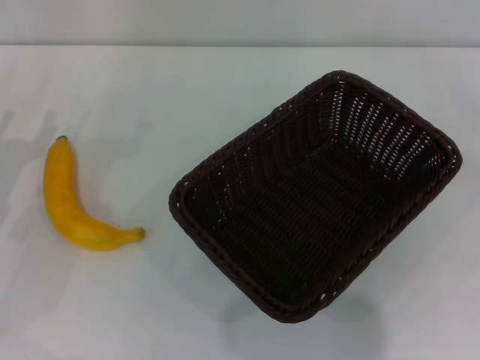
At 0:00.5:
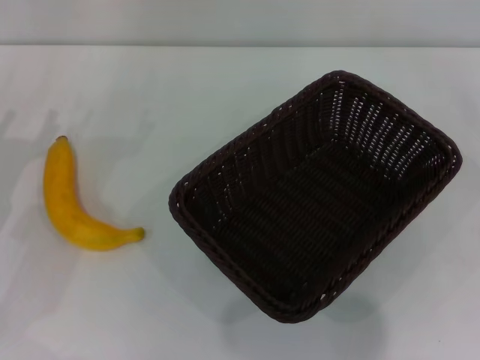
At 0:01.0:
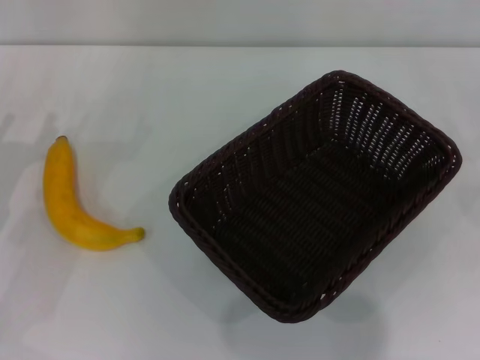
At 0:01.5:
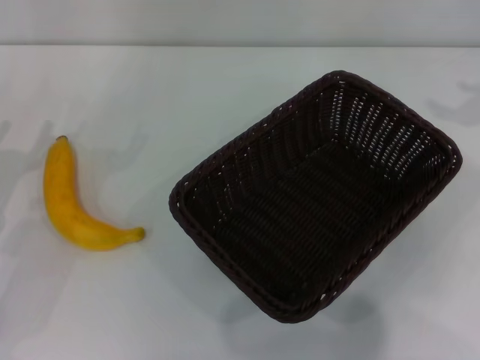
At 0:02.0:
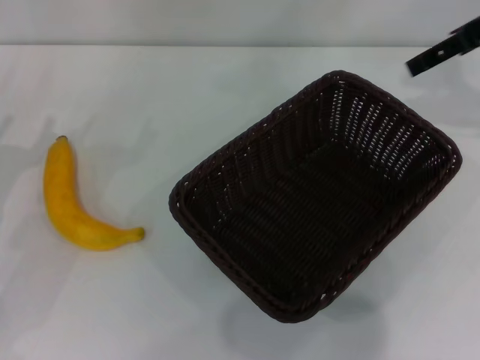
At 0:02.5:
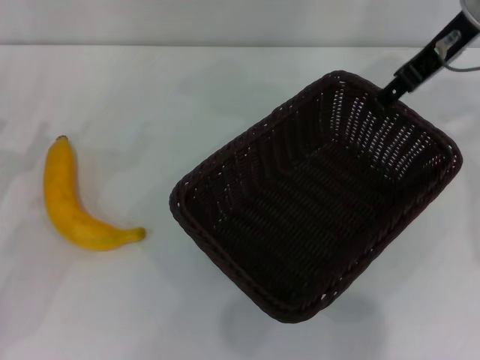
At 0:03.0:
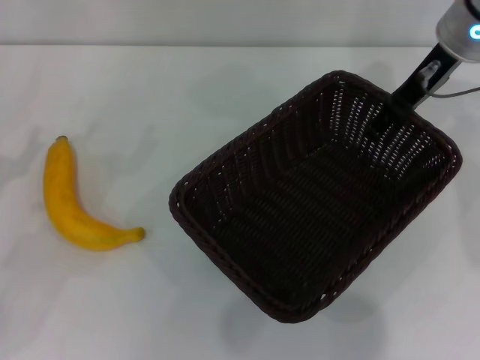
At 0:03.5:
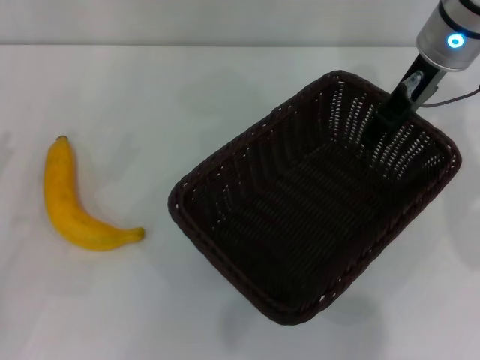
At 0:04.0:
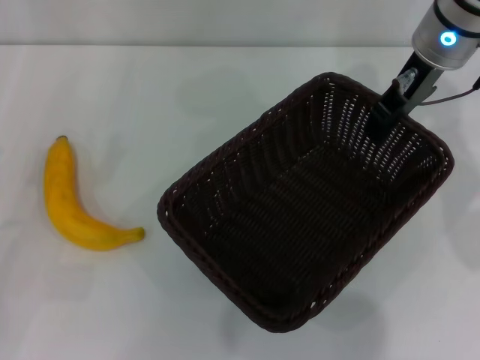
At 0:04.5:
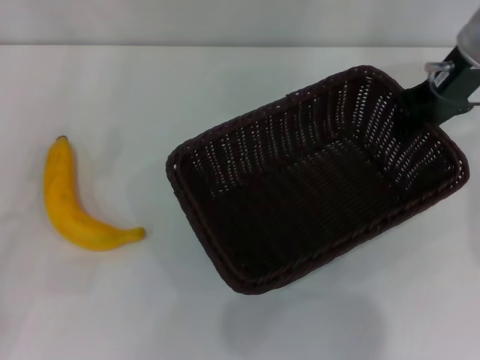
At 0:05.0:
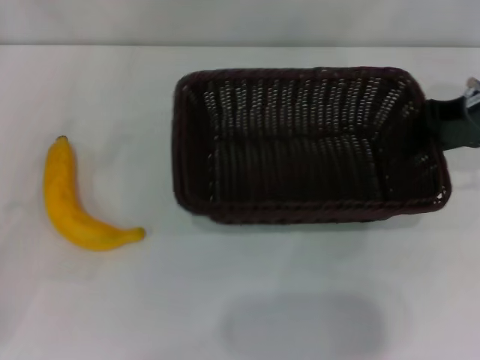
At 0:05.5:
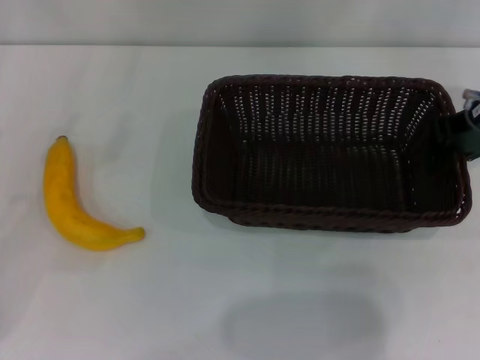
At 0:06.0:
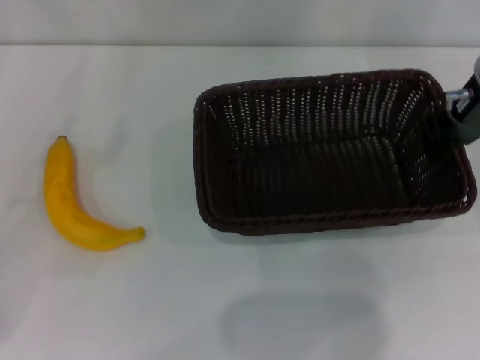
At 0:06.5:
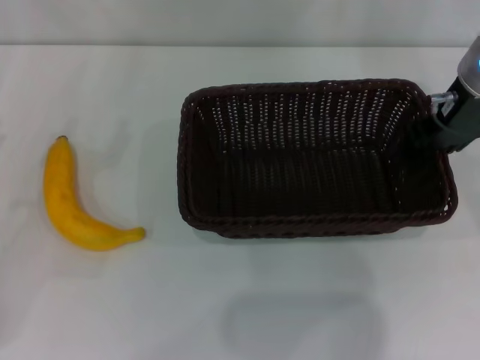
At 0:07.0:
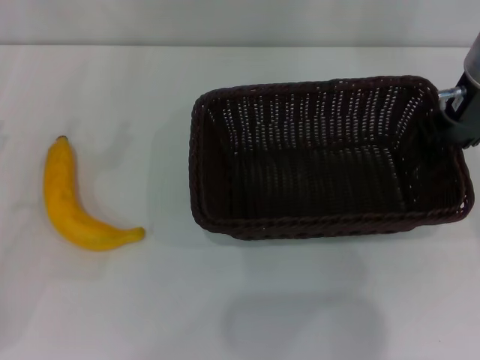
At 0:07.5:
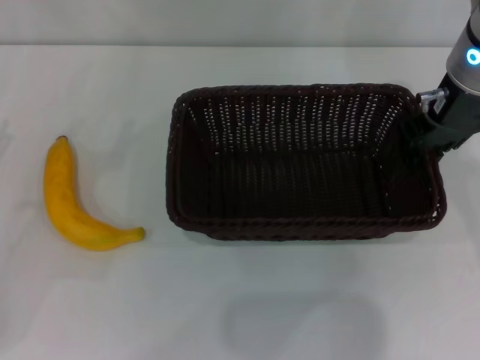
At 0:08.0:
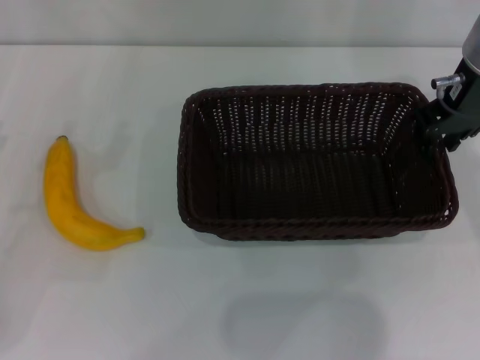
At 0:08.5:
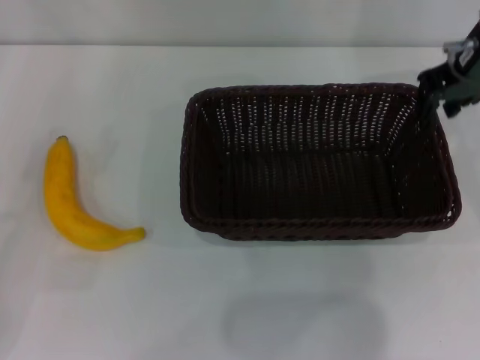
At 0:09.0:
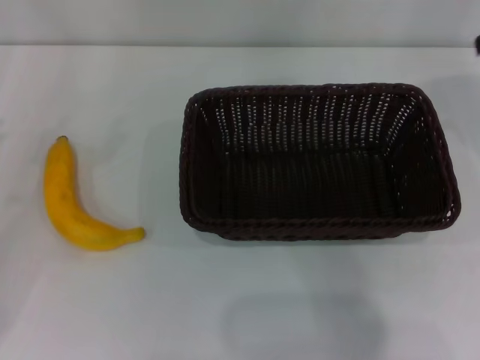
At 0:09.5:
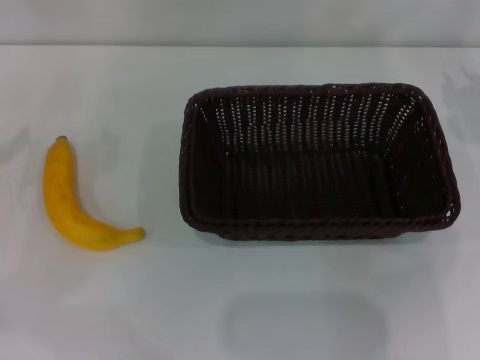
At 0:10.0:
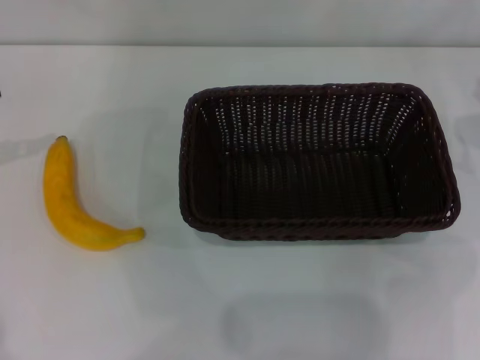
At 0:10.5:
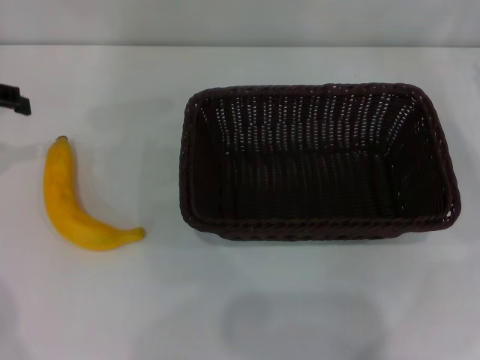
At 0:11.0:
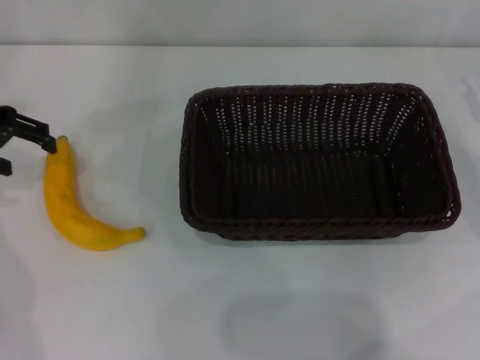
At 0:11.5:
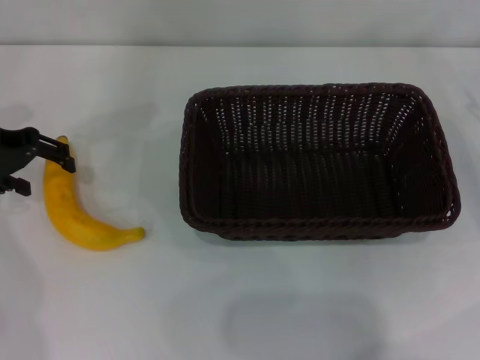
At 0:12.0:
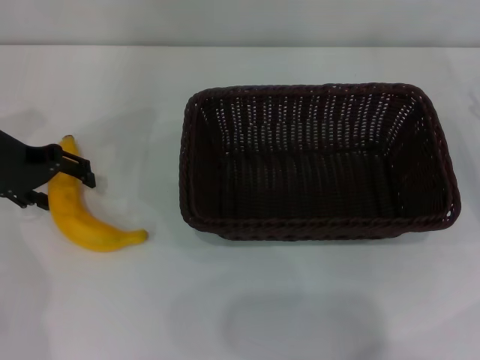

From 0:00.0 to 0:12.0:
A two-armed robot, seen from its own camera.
Step, from 0:00.0 to 0:04.0: Pick up the dark basket with the right gripper.
Step, from 0:04.5 to 0:08.0: Place the dark basket in the center of view with the right gripper.
From 0:00.0 to 0:02.0: The right gripper heads upward, forward and to the left, covering approximately 30 cm.
From 0:02.0 to 0:04.0: The left gripper ends up some 5 cm from where it was. Meanwhile the right gripper is displaced to the left and downward by roughly 10 cm, and closes up.
From 0:06.0 to 0:08.0: The grippers stay close to where they were, moving slightly.
From 0:08.0 to 0:10.0: The right gripper moves to the right and downward, approximately 20 cm.
From 0:10.0 to 0:12.0: The left gripper moves downward and to the right, about 10 cm.

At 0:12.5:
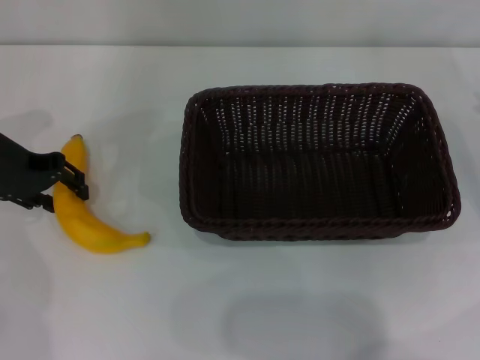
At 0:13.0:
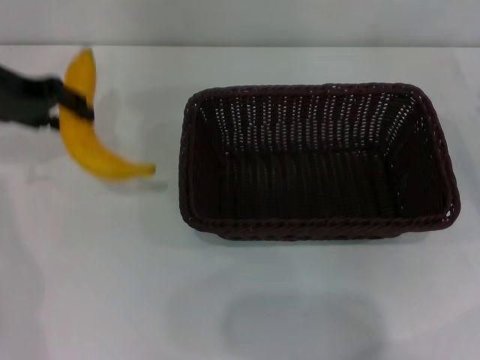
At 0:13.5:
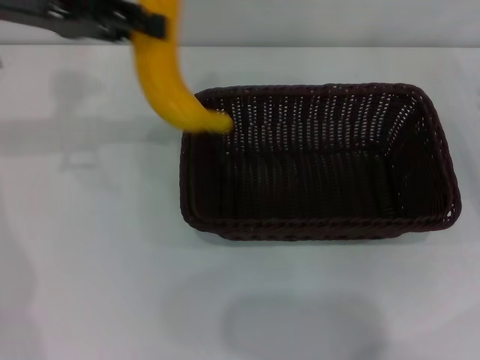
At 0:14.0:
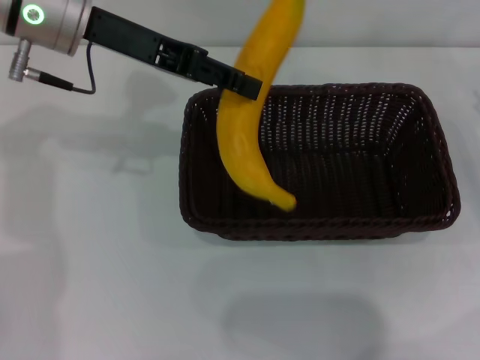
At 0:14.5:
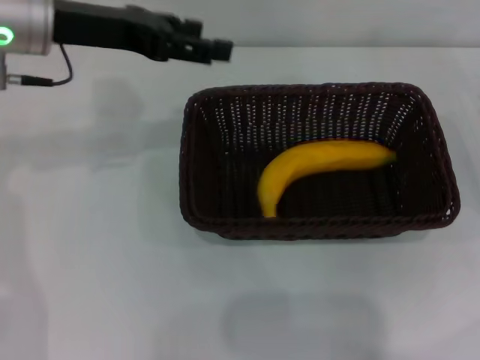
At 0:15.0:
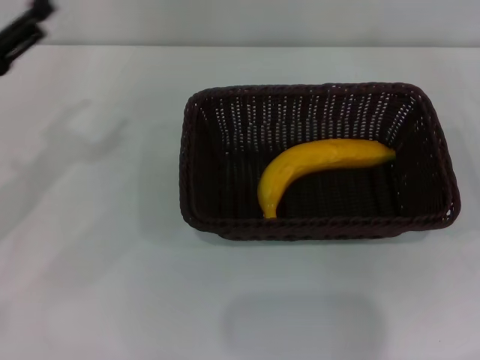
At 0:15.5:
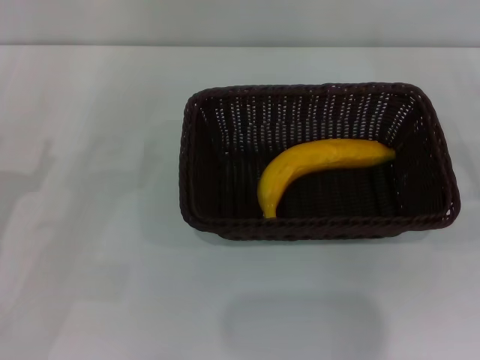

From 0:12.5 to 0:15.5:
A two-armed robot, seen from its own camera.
Step, from 0:13.5 to 0:14.0: Place the banana into the dark basket with the left gripper.
From 0:12.5 to 0:14.0: The left gripper goes about 15 cm to the right and upward, and closes.
From 0:14.0 to 0:15.5: The right gripper is displaced backward by roughly 5 cm; the left gripper goes approximately 30 cm downward, backward and to the left, and opens.

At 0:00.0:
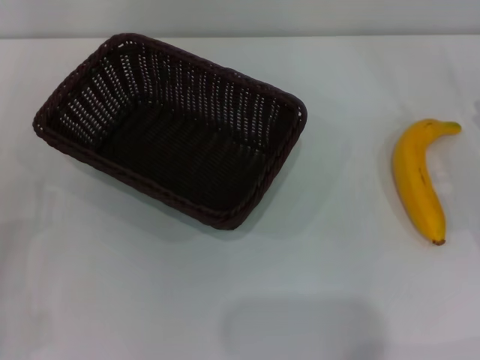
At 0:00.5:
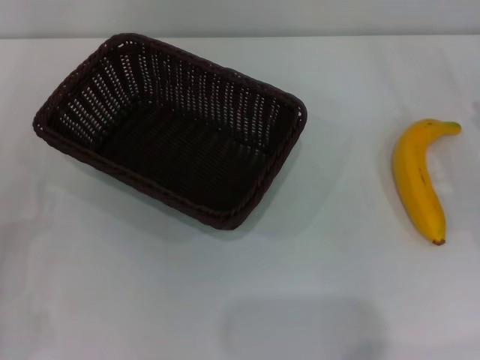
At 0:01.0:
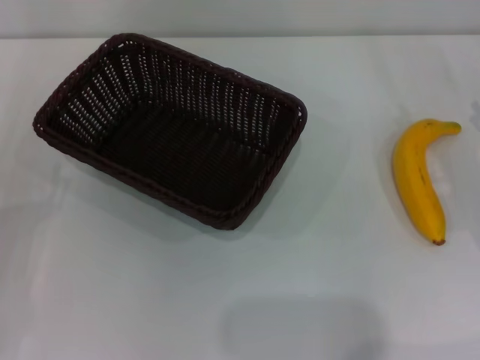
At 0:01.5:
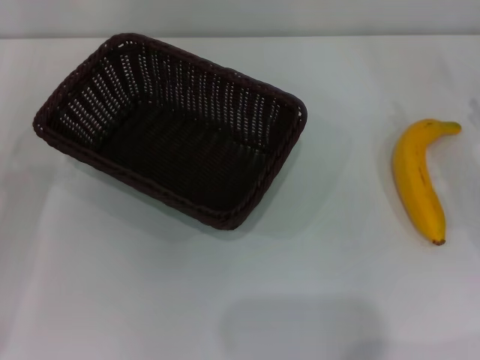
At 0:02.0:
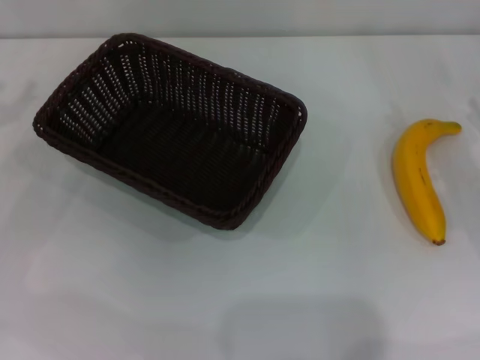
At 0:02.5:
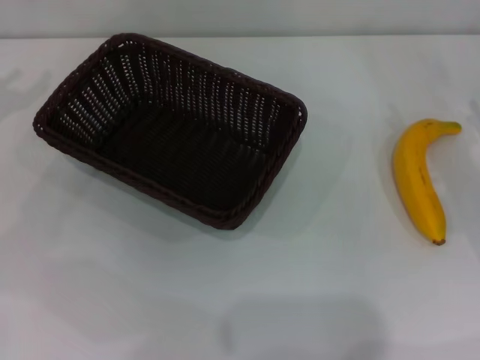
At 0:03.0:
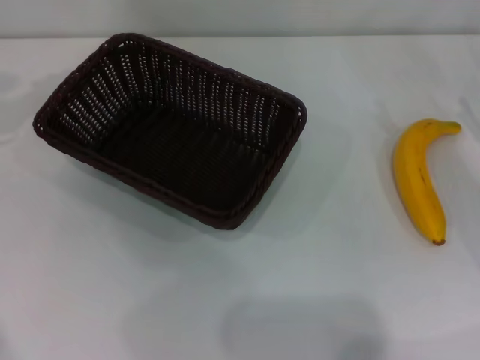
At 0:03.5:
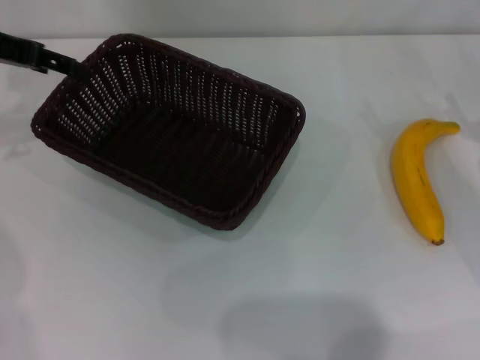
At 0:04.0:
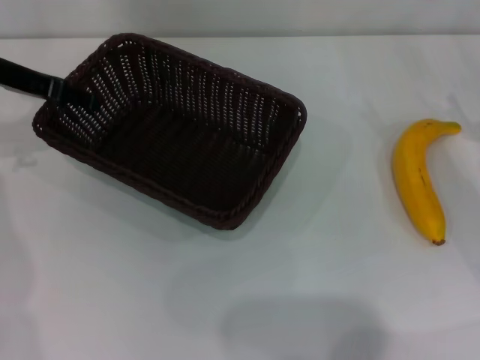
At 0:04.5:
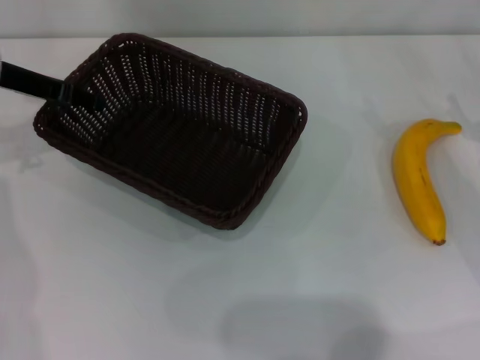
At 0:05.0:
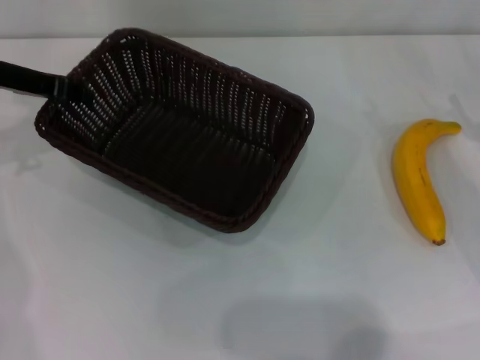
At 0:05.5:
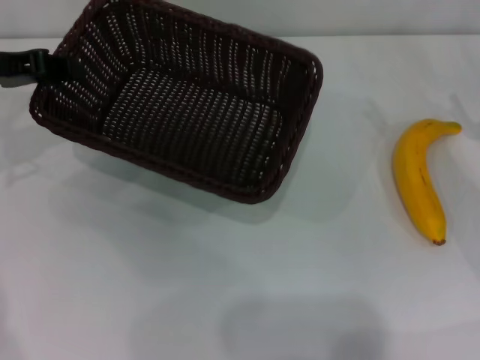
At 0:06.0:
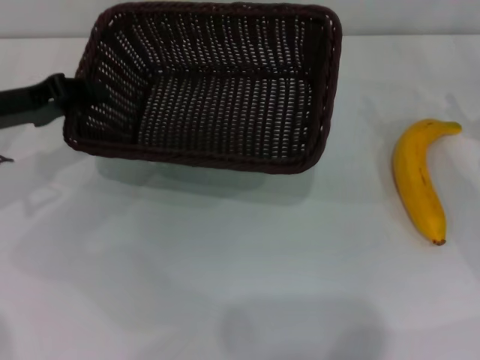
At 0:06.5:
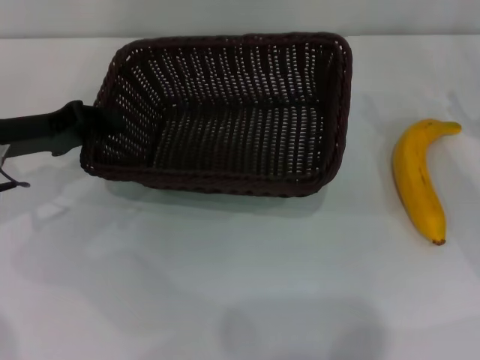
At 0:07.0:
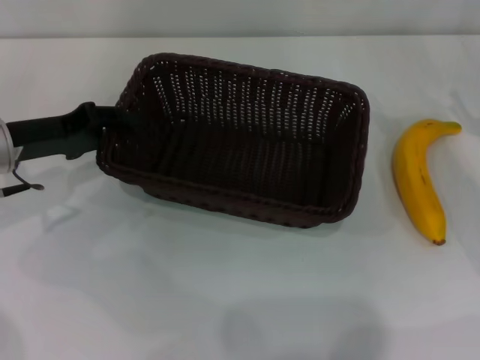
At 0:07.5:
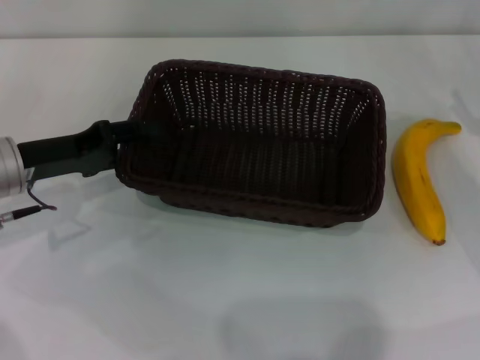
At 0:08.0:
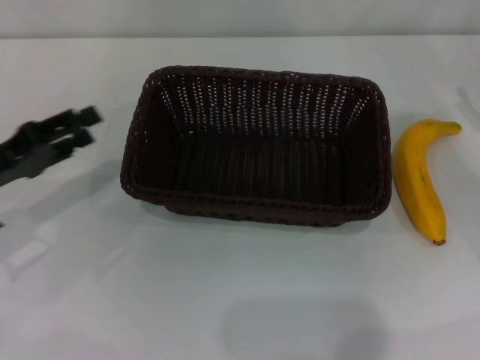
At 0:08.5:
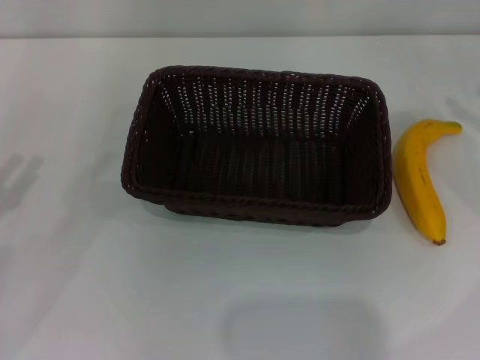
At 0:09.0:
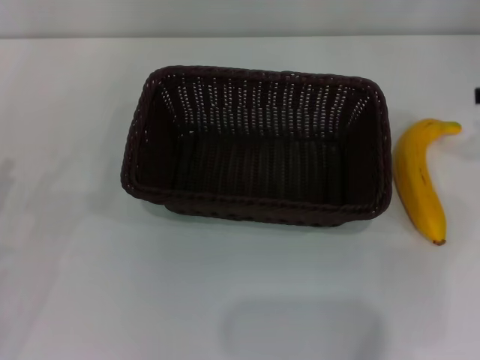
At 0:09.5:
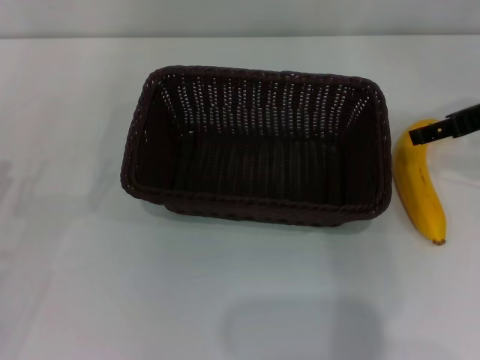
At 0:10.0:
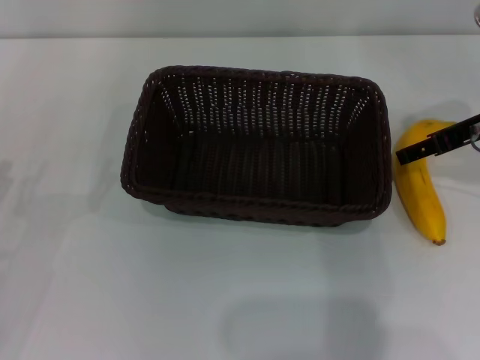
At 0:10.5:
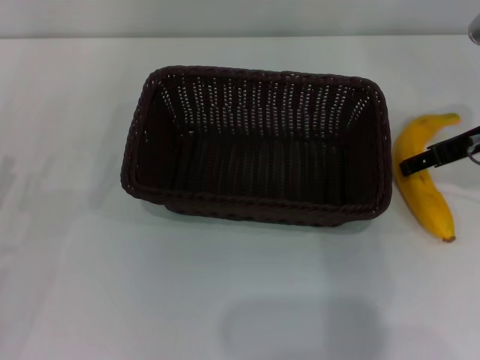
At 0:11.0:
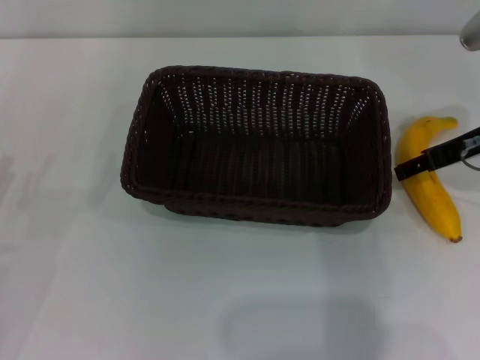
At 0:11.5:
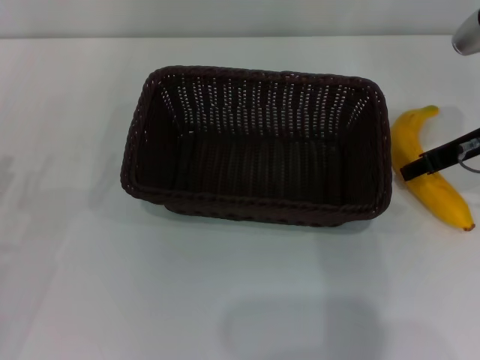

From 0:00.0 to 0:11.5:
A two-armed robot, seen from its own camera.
Step, from 0:05.5 to 0:08.0: Place the dark basket in the center of view with the left gripper.
From 0:02.0 to 0:04.0: The left gripper travels to the right and forward by approximately 15 cm.
From 0:04.0 to 0:06.0: The left gripper goes roughly 10 cm backward and downward, and closes up.
From 0:06.0 to 0:07.5: The left gripper shifts by roughly 5 cm, and opens its fingers.
From 0:07.5 to 0:09.5: The left gripper goes roughly 15 cm backward and to the left. Meanwhile the right gripper shifts some 15 cm upward and to the left.
From 0:09.5 to 0:11.5: The right gripper moves some 5 cm, and closes.
